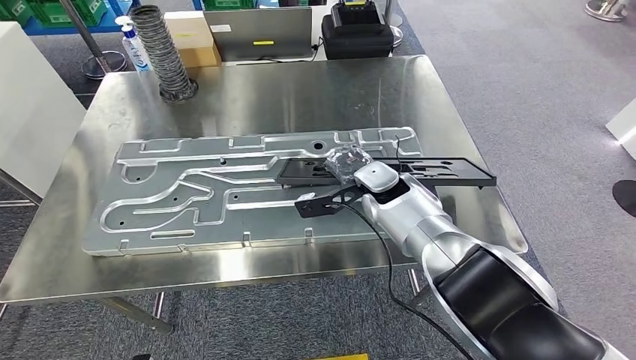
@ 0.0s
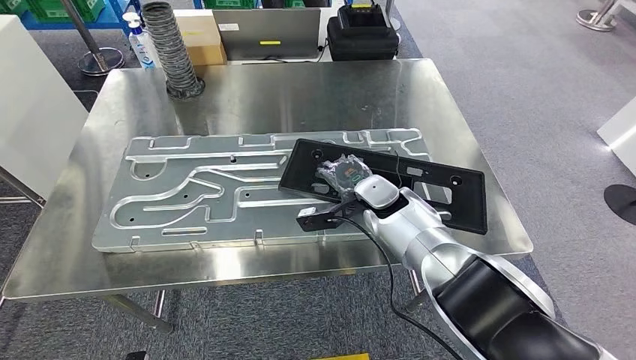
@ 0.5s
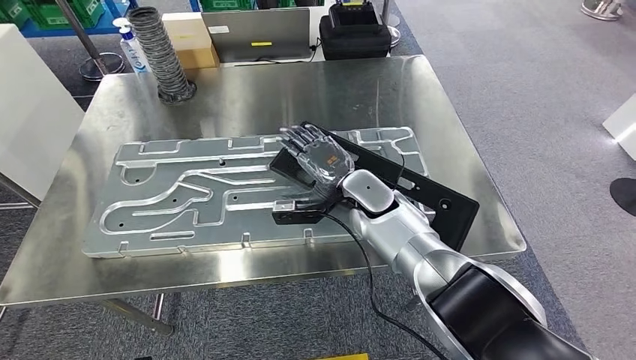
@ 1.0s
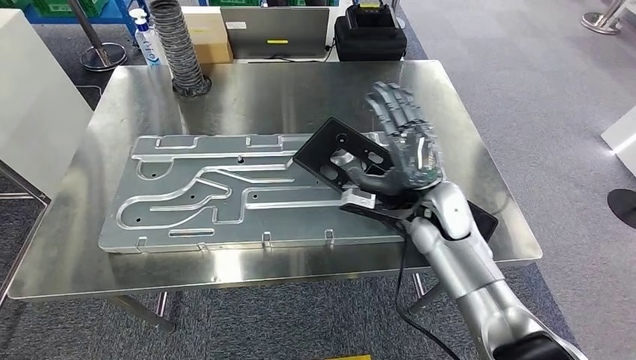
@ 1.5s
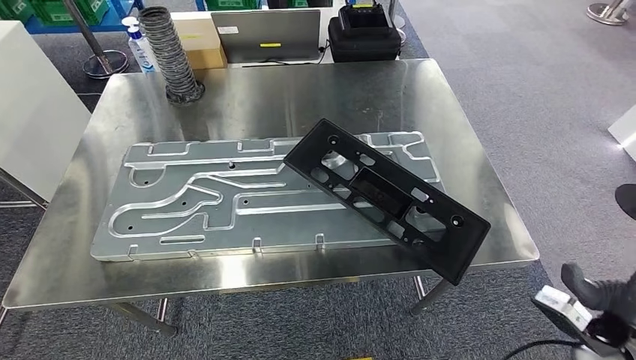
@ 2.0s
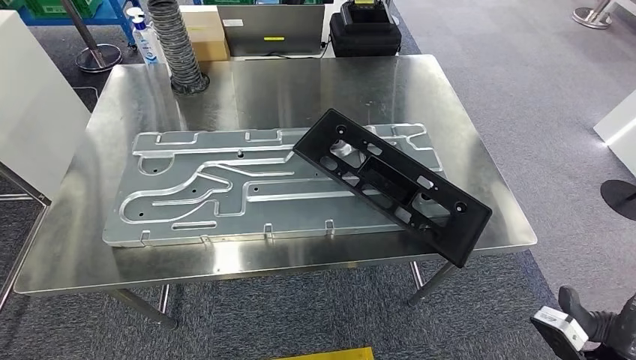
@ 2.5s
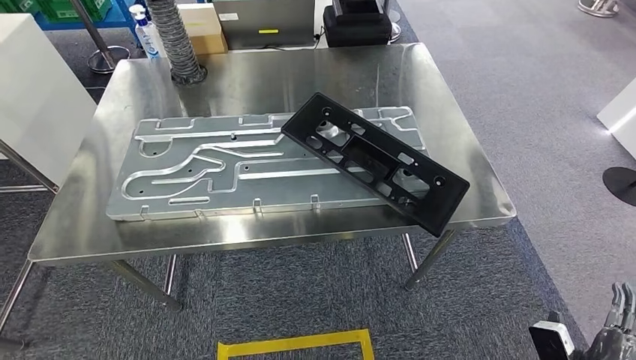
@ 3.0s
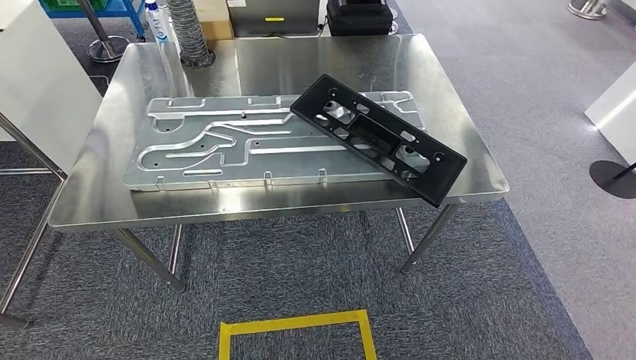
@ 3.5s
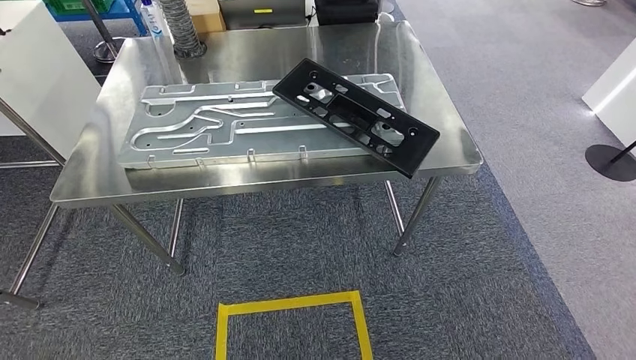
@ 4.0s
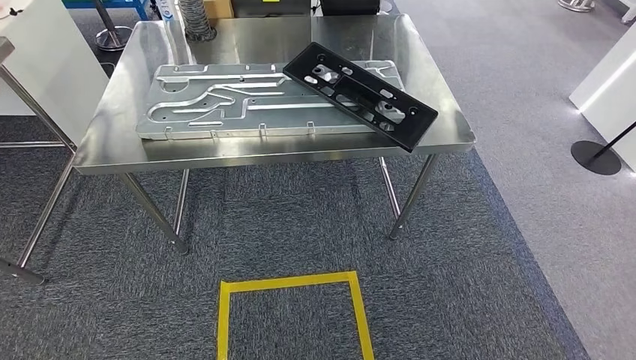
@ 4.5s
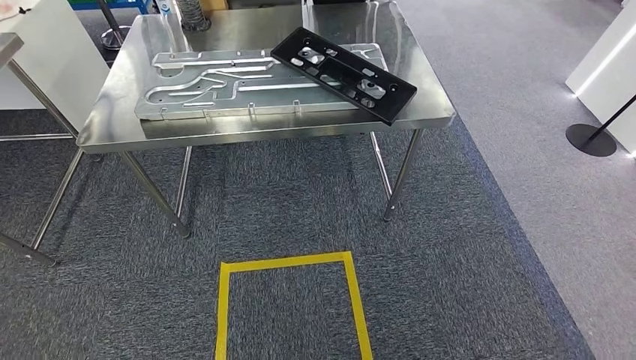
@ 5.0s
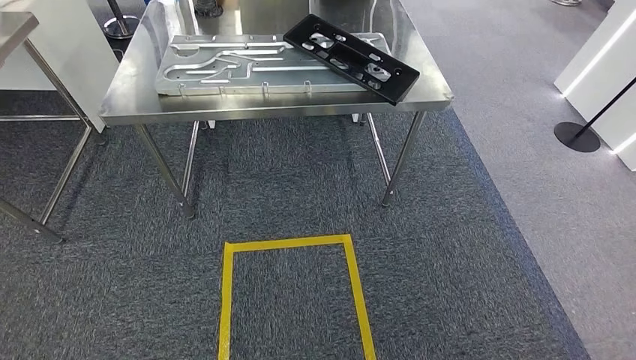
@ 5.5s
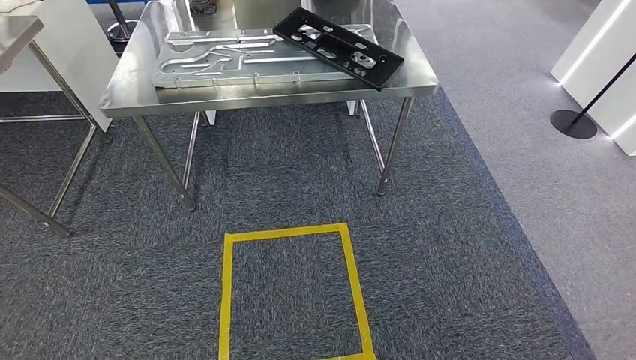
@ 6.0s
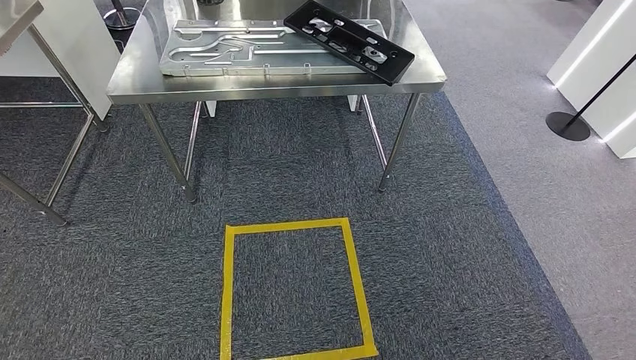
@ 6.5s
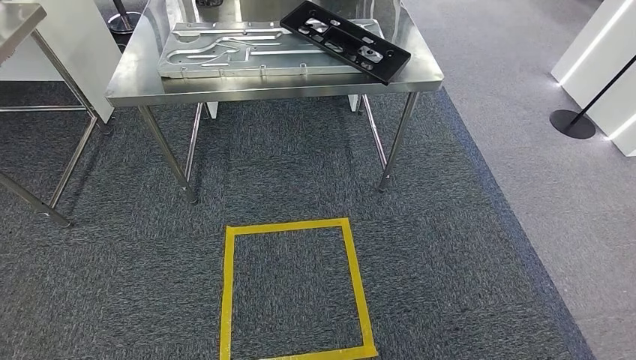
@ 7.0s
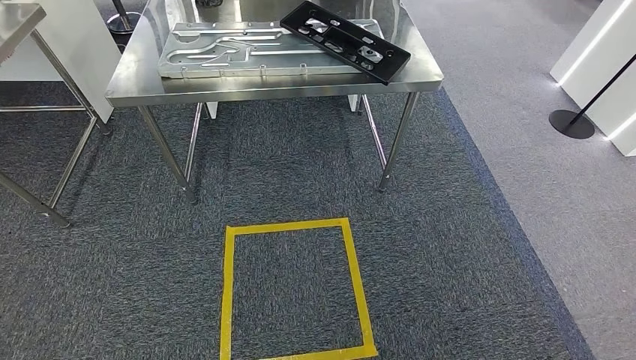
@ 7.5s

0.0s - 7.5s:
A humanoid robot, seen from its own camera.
Step, 0.0s - 3.5s: Insert the large material into the corresponding slot on the workbench.
Step, 5.0s - 7.5s: Move to the initial position of the shelf.
5.5s - 7.5s: The hands stay close to where they were, moving slightly.
